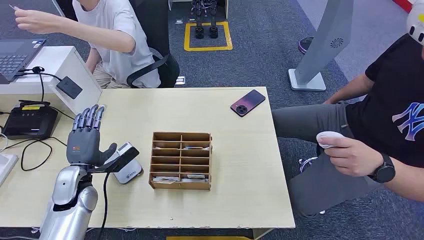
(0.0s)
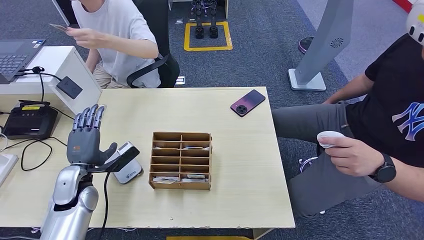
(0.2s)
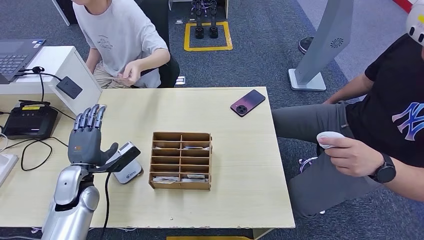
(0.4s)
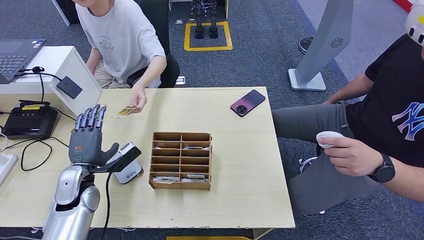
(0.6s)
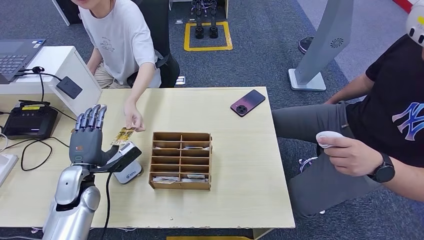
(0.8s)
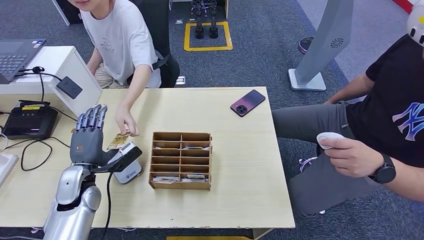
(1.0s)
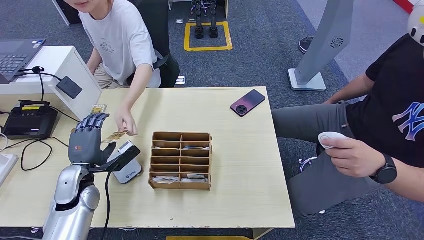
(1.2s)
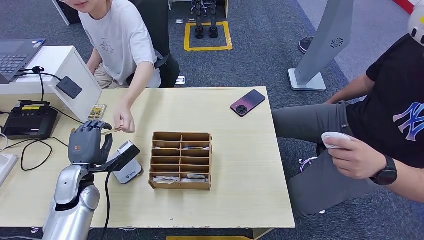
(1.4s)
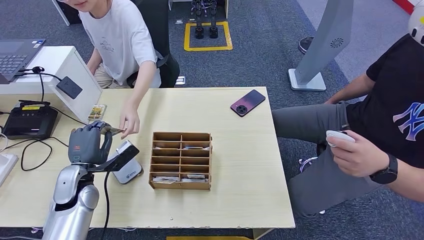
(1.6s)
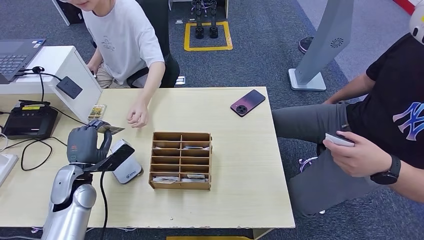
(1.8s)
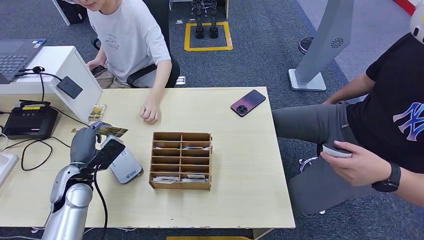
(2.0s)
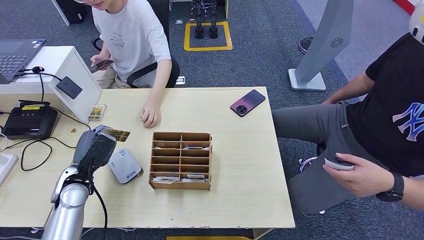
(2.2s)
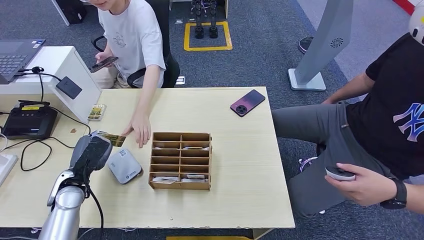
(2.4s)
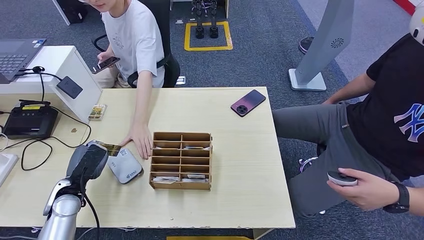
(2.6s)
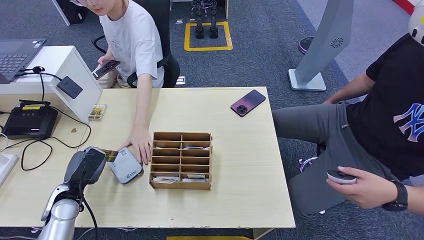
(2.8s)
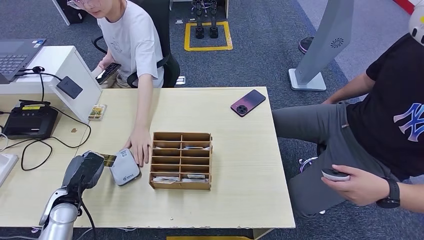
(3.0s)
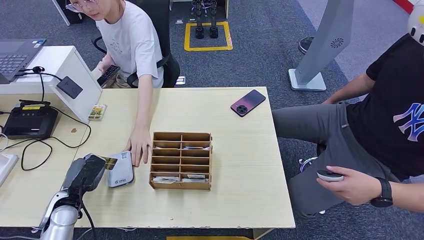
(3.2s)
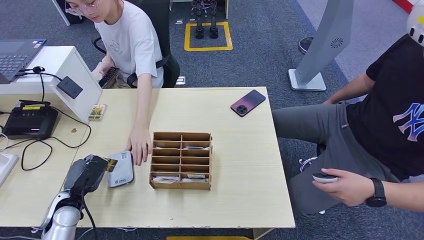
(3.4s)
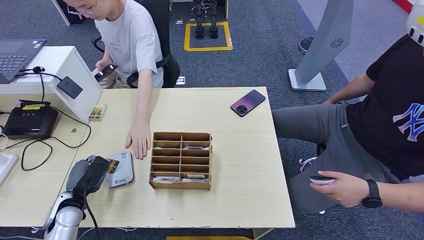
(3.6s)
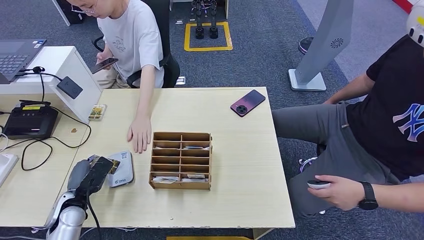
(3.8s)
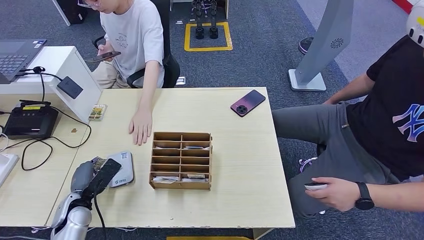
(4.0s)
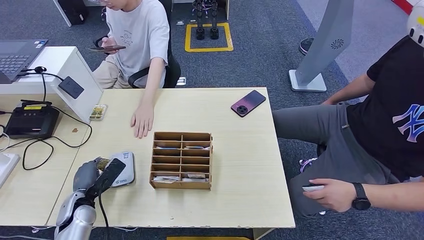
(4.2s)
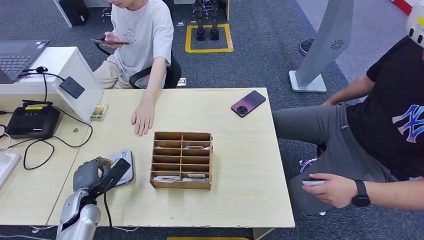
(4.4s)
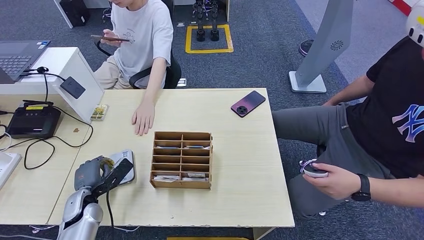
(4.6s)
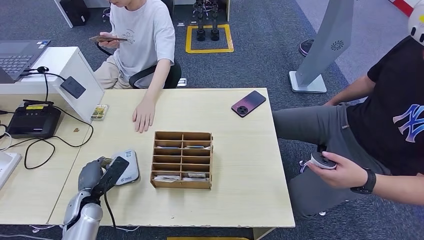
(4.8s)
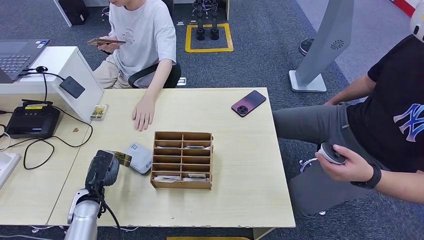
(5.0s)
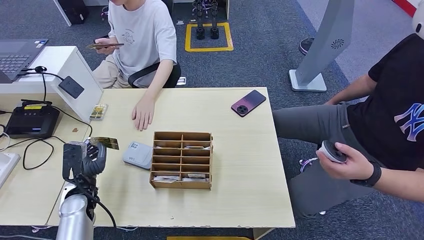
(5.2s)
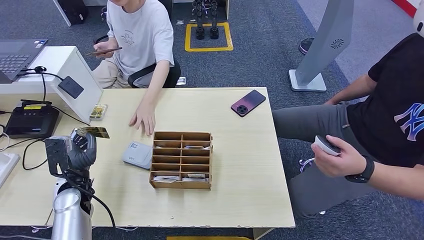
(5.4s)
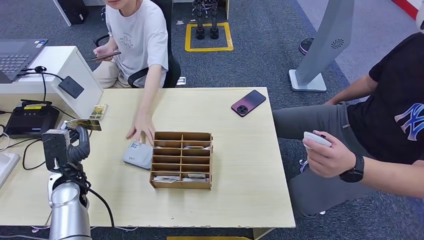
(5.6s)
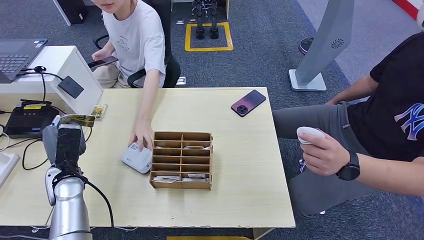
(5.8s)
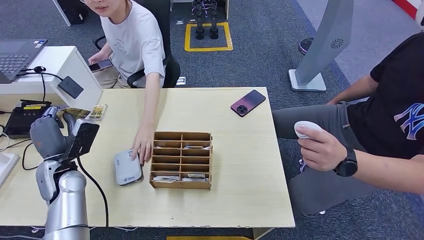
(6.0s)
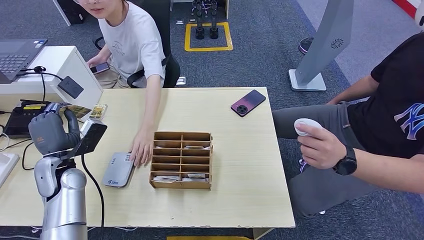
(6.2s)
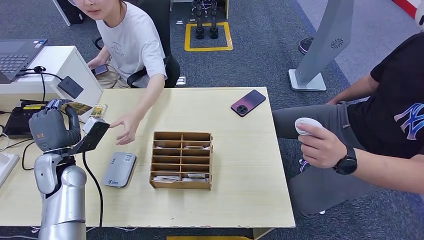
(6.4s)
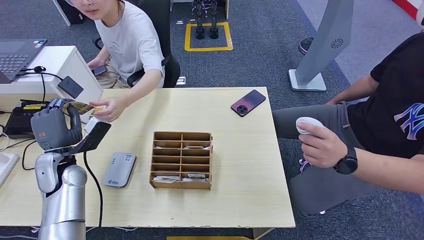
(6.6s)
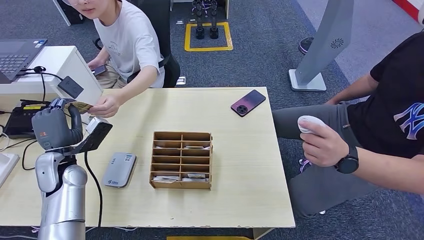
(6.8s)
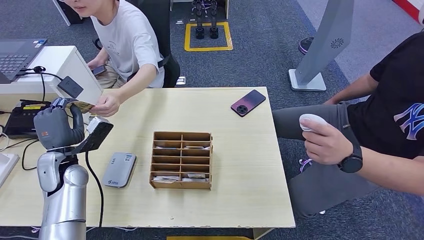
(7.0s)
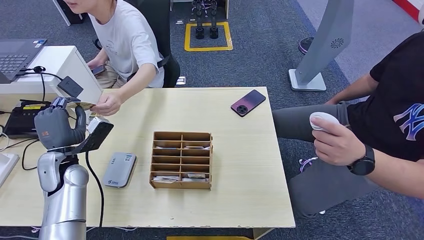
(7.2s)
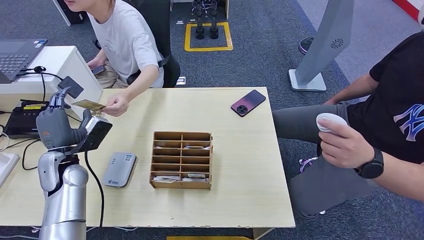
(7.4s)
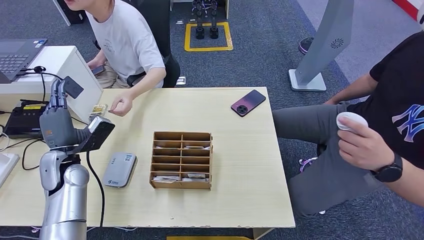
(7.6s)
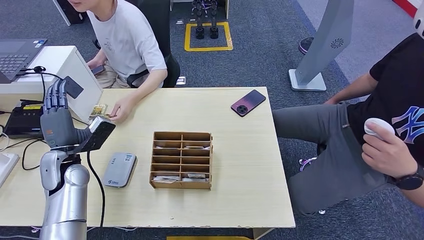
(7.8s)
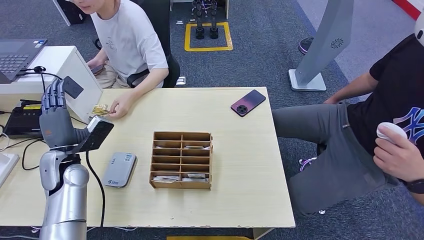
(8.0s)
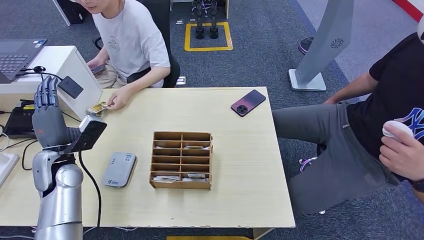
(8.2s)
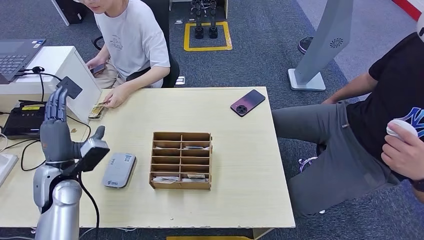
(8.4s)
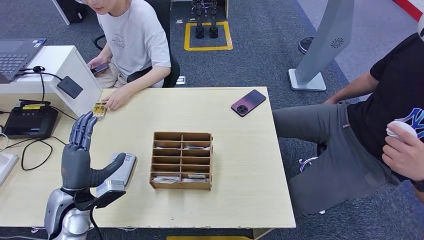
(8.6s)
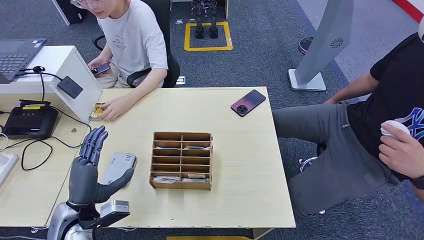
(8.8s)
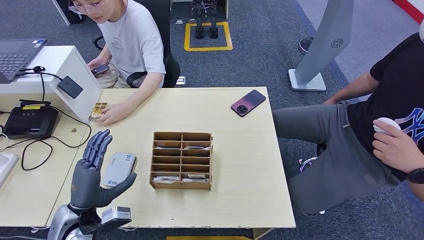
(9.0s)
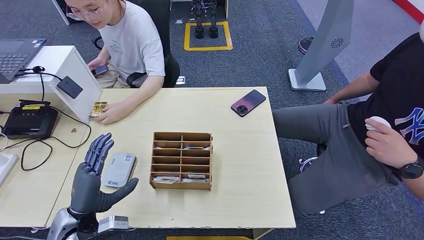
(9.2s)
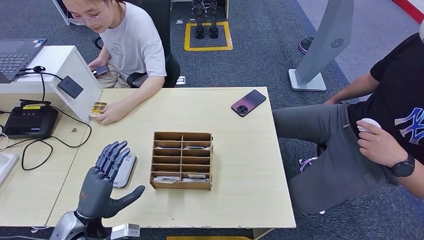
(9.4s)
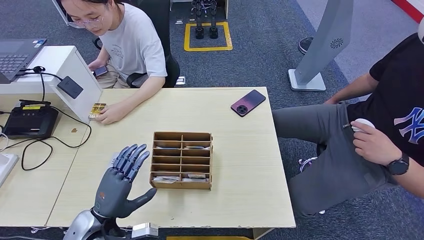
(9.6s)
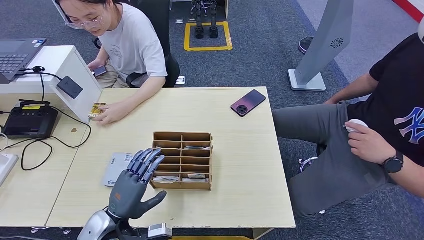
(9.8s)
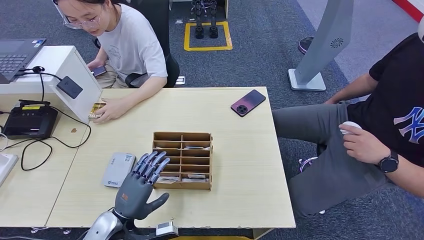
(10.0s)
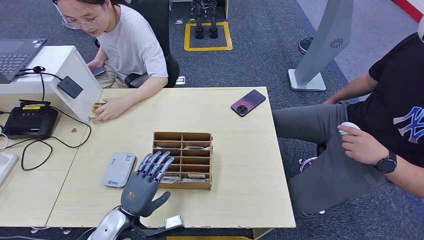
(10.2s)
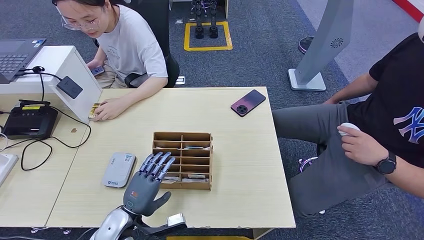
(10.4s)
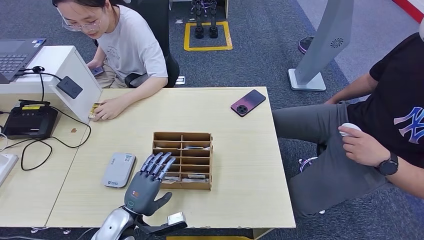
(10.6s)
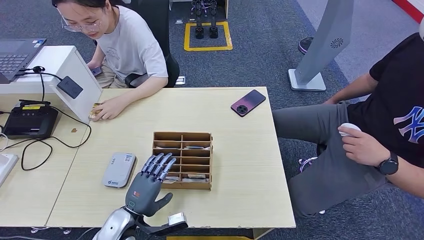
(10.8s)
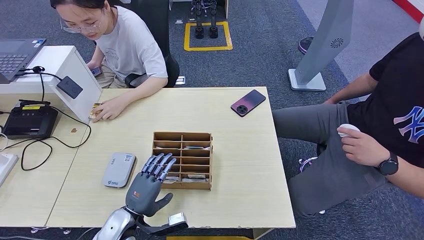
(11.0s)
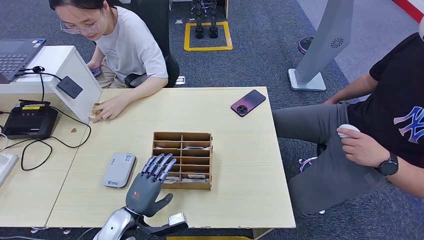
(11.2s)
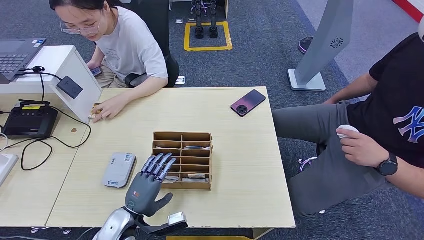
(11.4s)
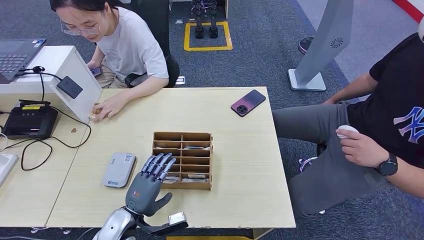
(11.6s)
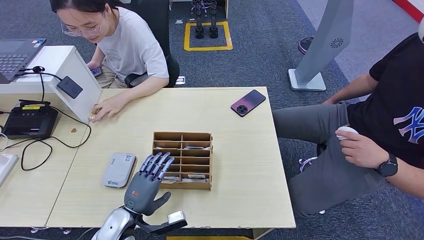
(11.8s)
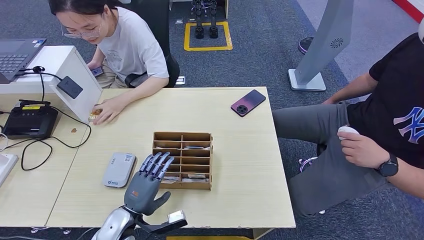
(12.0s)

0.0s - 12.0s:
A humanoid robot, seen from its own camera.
Step, 0.0s - 1.6s: Take the ID card from the person's hand.
Step, 1.8s - 3.8s: Place the ID card on the card reader.
Step, 4.0s - 7.2s: Hand the ID card to the person.
1.6s - 3.0s: The left hand goes approximately 10 cm downward and to the left.
6.0s - 7.6s: There are only small adjustments of the hands.
7.6s - 9.0s: The left hand moves backward and to the right, approximately 15 cm.
9.0s - 10.4s: The left hand is displaced to the right and downward by approximately 10 cm.
10.4s - 12.0s: Neither hand changes place.

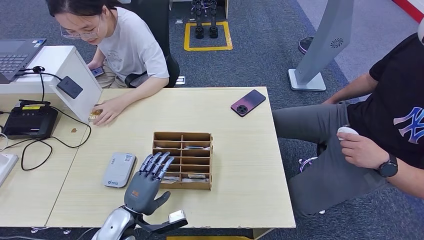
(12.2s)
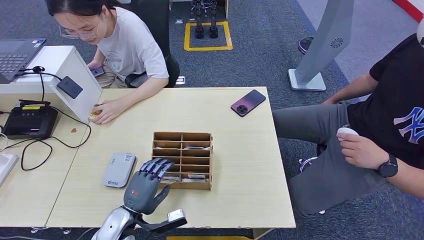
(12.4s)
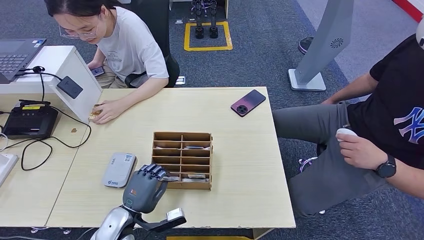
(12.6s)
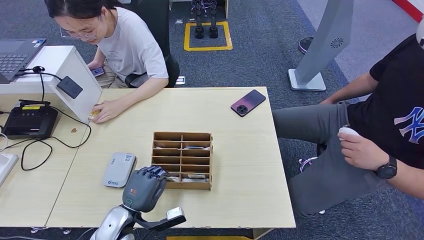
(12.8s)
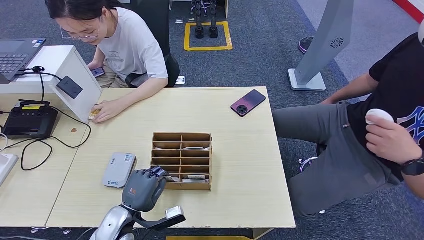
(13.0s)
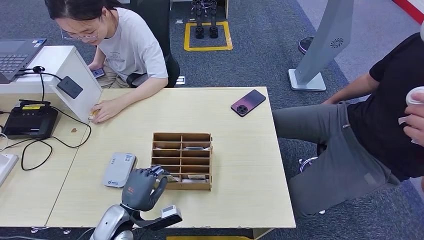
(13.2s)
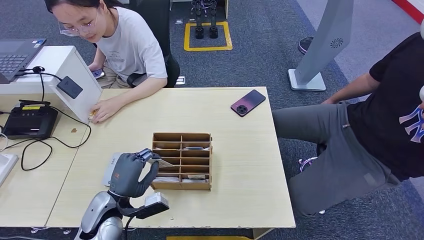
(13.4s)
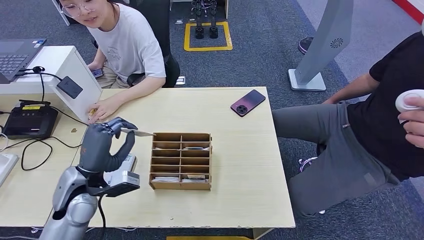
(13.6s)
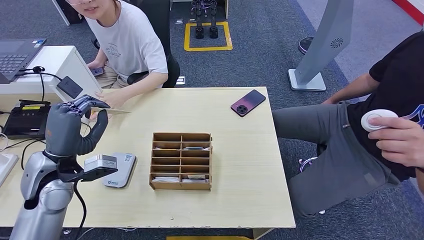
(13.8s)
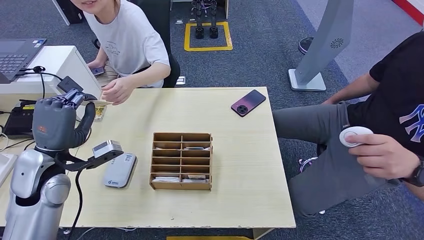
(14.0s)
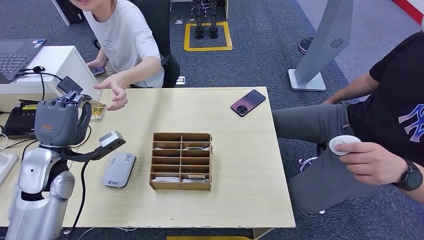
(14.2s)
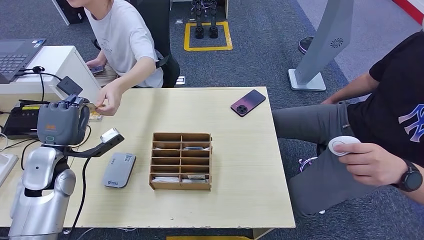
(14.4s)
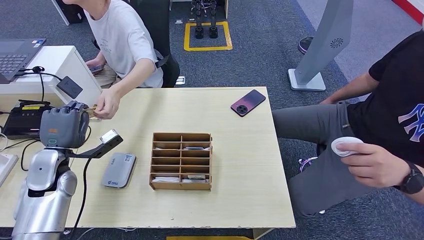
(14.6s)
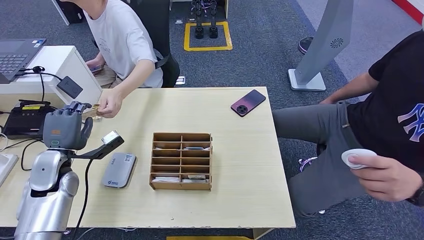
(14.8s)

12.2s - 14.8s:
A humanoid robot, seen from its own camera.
Step, 12.2s - 13.2s: Pick up the room key from the key card box.
Step, 13.6s - 14.8s: Hand the room key to the person.
12.2s - 13.4s: The left hand changes place by some 5 cm.
13.4s - 14.8s: The left hand travels to the left, forward and upward by about 20 cm.
